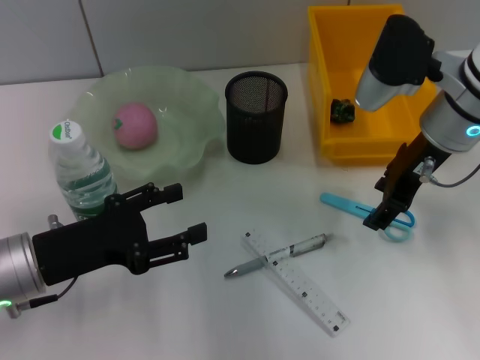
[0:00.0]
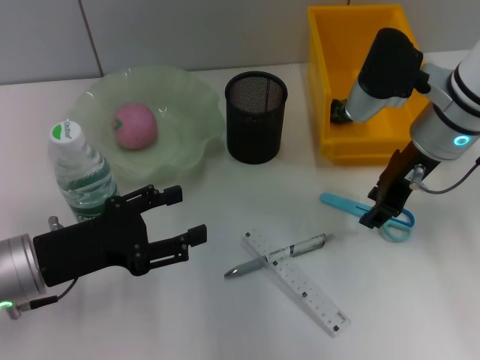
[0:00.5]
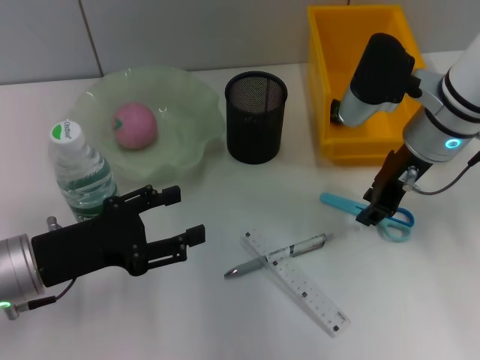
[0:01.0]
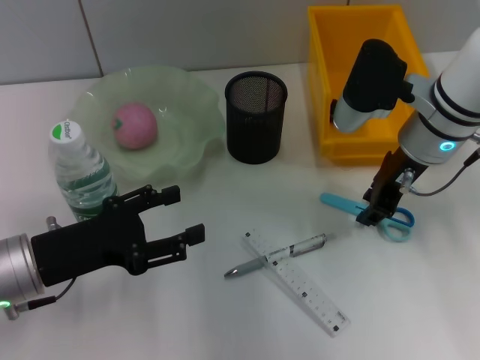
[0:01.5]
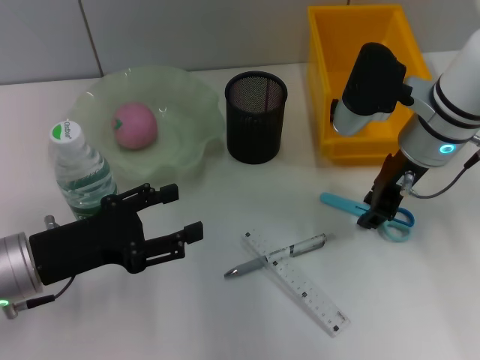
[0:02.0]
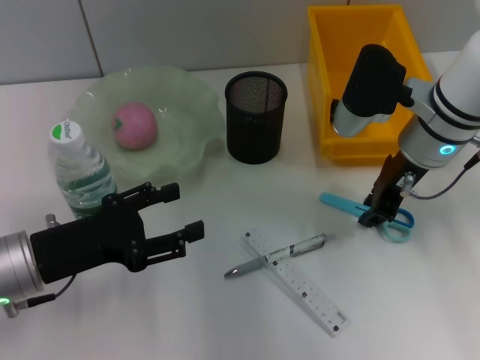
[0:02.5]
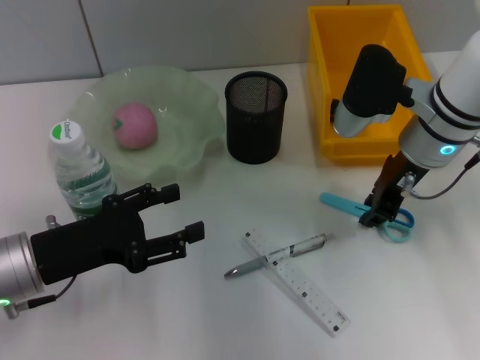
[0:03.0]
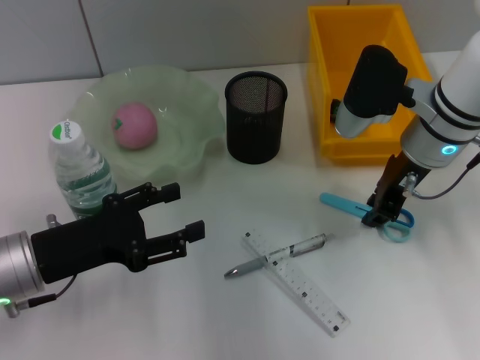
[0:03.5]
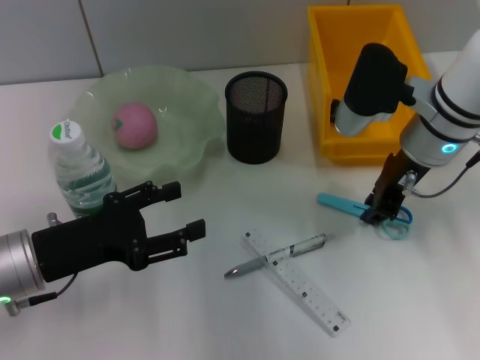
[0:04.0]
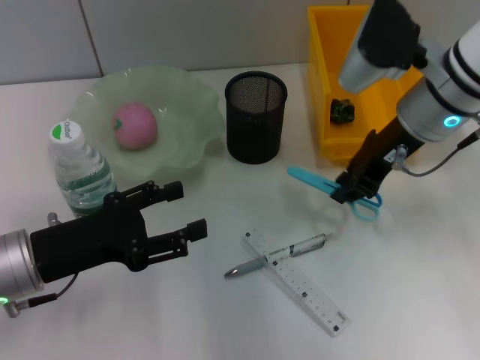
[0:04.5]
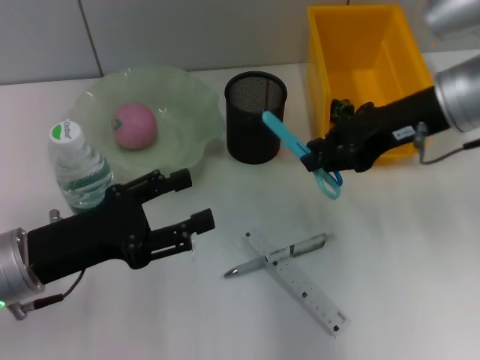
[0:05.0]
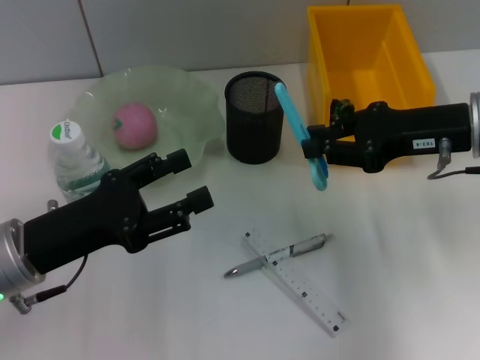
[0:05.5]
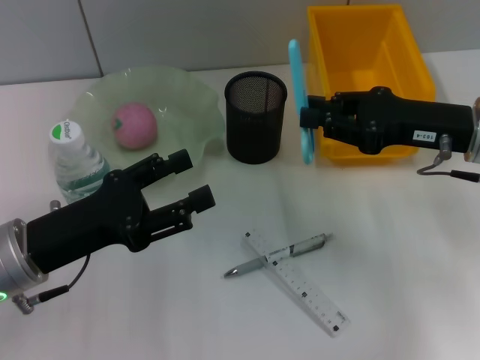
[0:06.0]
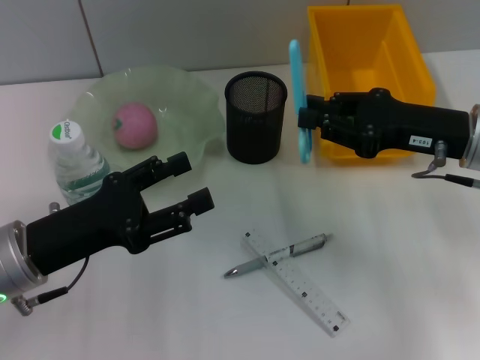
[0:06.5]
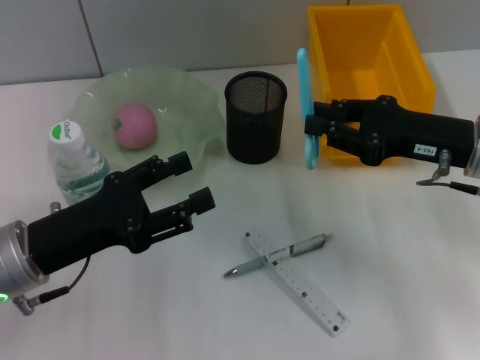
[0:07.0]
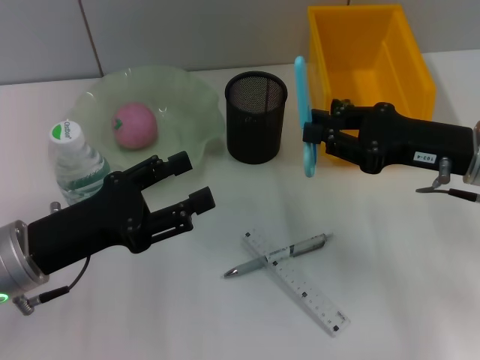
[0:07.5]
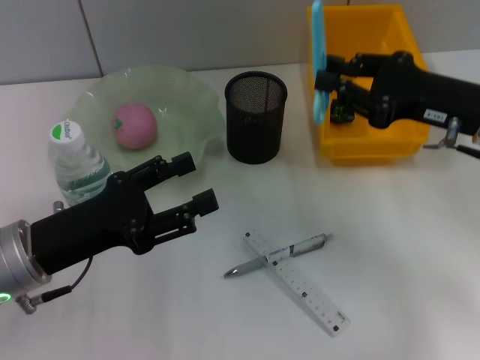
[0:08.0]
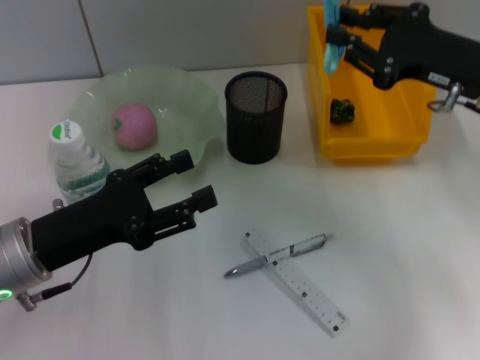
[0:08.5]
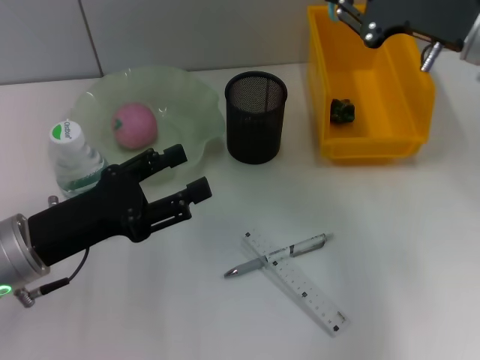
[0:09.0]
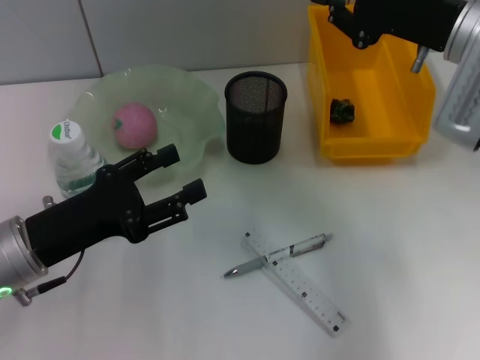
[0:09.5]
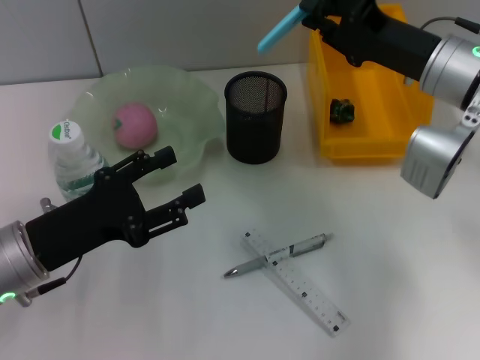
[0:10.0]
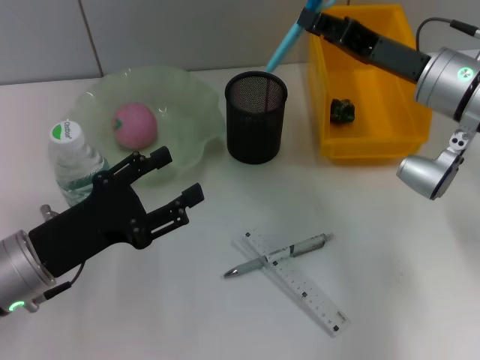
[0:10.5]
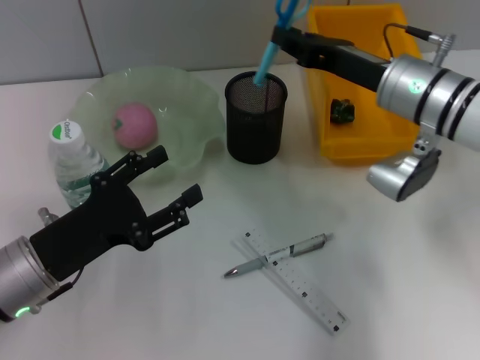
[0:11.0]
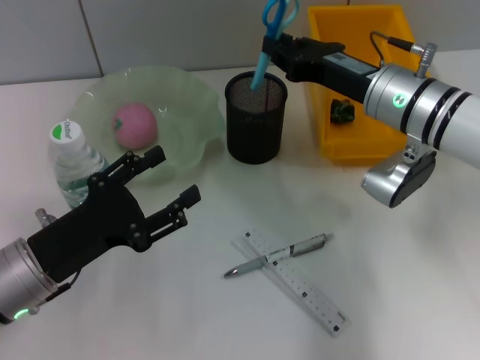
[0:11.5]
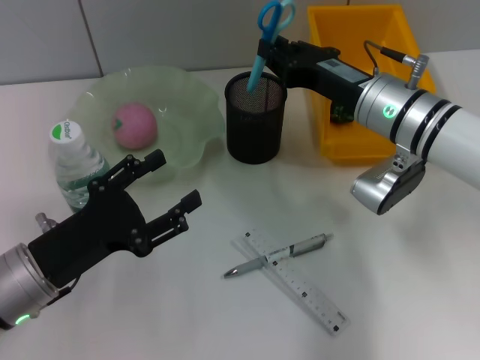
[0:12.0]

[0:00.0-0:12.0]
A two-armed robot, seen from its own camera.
Step, 0:00.0 to 0:03.5: Grab the blue scissors with the right hand.
0:00.0 to 0:02.0: The right gripper closes its fingers.
0:02.0 to 0:04.0: Neither gripper changes place.
0:04.0 to 0:06.0: The right gripper heads to the right and backward, covering some 10 cm.
0:06.0 to 0:08.0: There are only small adjustments of the grippers.
0:08.0 to 0:10.0: The right gripper ends up some 5 cm from where it was.
0:10.0 to 0:12.0: The right gripper heads to the left, covering about 5 cm.

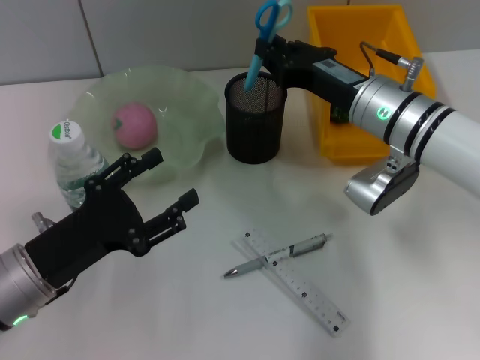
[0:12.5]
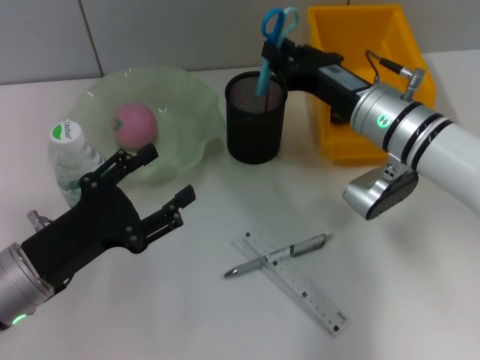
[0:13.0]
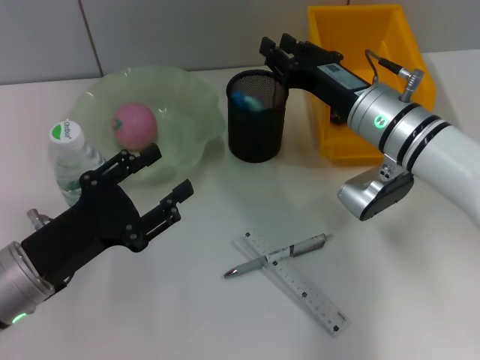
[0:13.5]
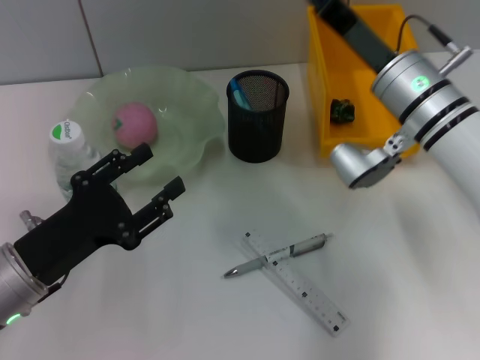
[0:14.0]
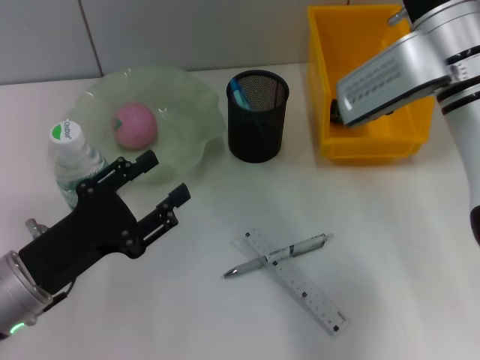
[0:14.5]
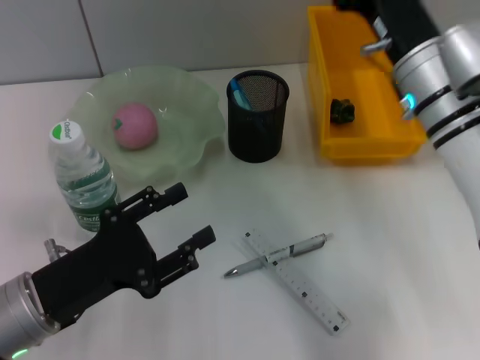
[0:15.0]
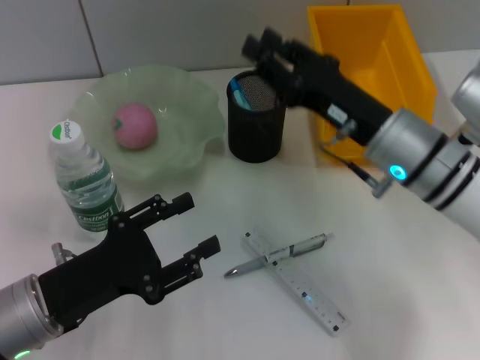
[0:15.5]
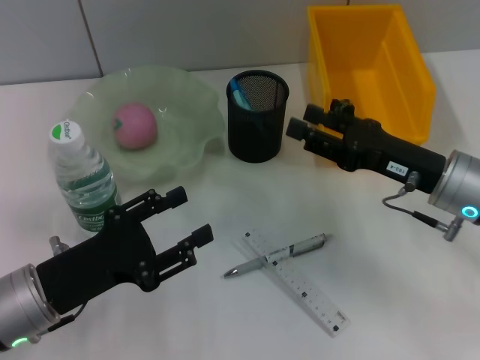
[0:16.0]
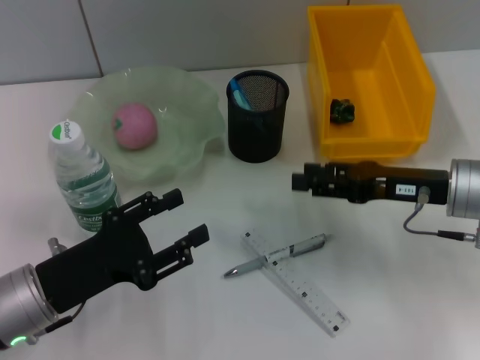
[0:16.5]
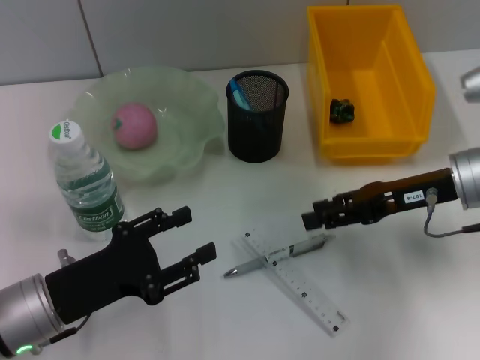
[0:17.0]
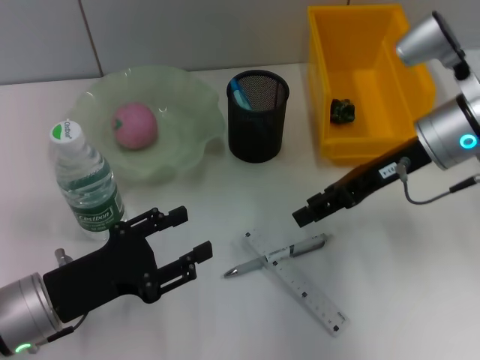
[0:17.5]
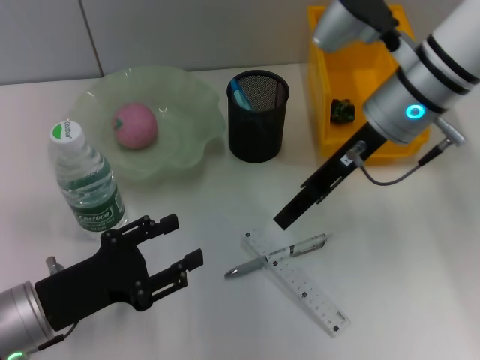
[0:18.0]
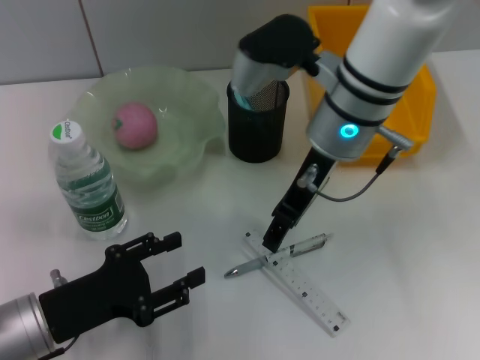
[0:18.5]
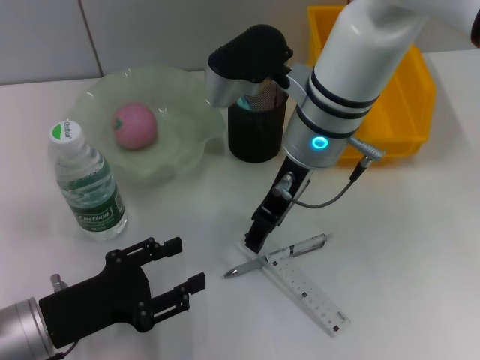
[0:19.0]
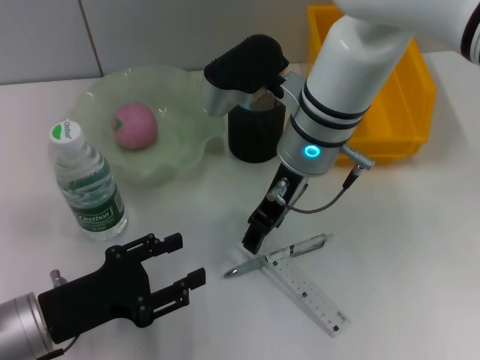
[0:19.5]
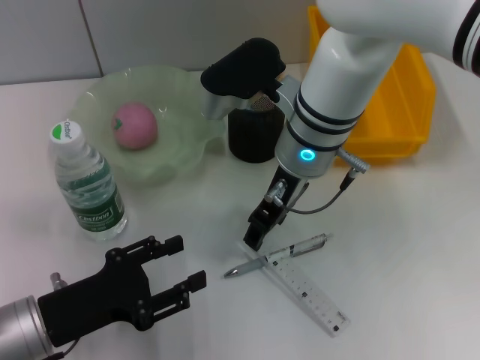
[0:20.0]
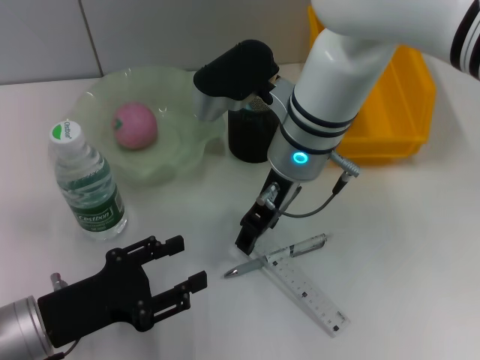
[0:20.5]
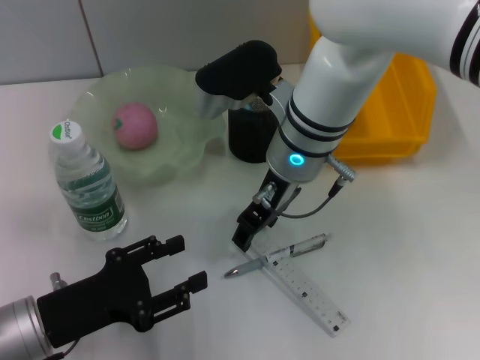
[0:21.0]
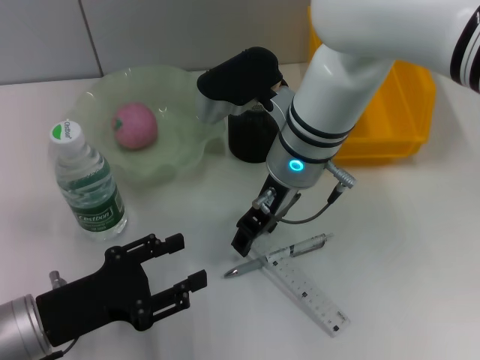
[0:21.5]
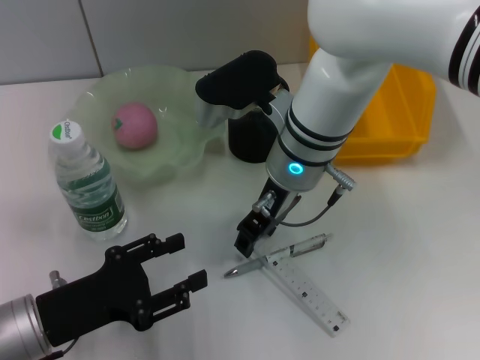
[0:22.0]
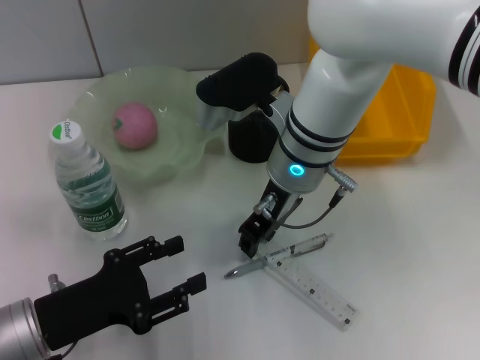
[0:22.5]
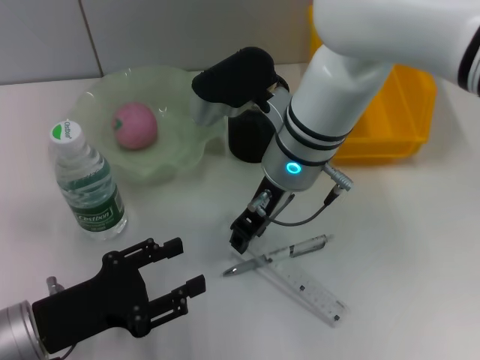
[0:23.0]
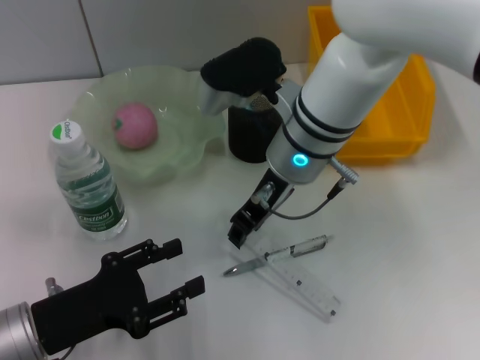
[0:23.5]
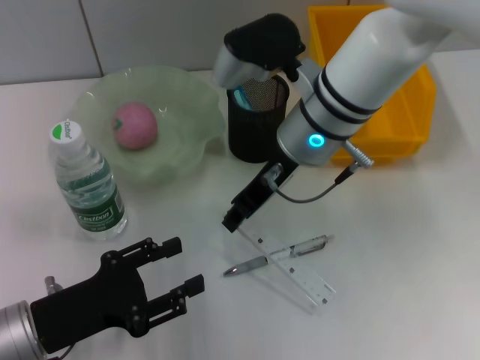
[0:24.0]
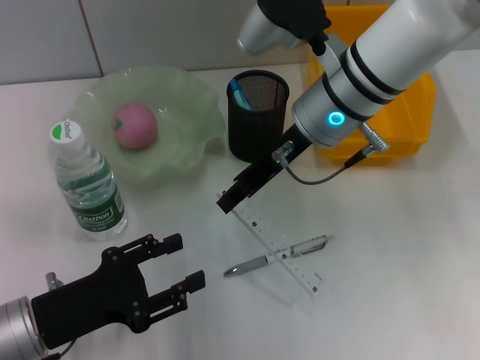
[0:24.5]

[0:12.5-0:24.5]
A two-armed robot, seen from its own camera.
Step, 0:14.0 to 0:22.5: Grab the ruler with the right hand.
0:12.5 to 0:14.5: The right gripper travels upward by roughly 5 cm.
0:14.5 to 0:16.5: The right gripper is displaced downward, to the right and backward by some 10 cm, and opens its fingers.
0:16.5 to 0:18.5: The right gripper moves to the left and upward, roughly 20 cm.
0:18.5 to 0:20.5: There are only small adjustments of the grippers.
0:20.5 to 0:22.5: The right gripper closes its fingers.
0:22.5 to 0:24.5: The right gripper ends up some 5 cm from where it was.

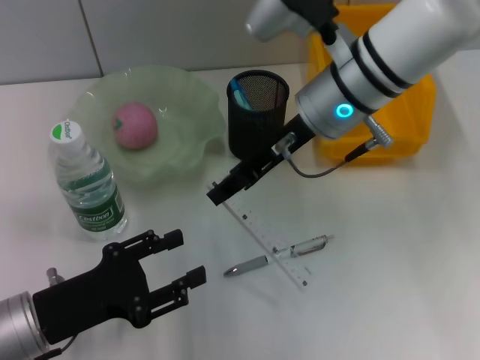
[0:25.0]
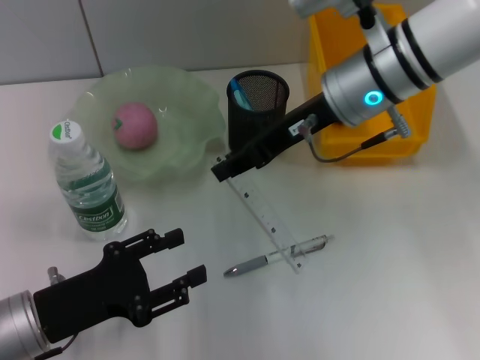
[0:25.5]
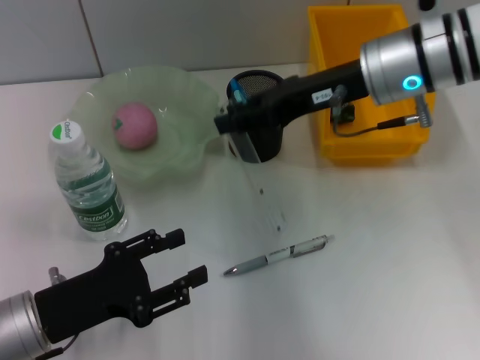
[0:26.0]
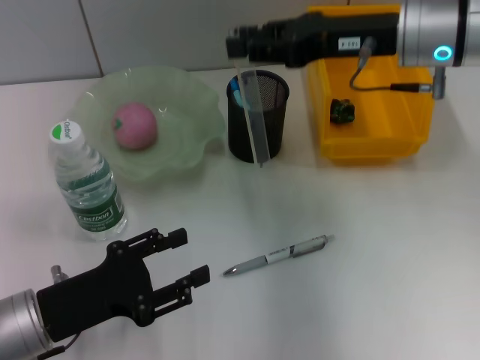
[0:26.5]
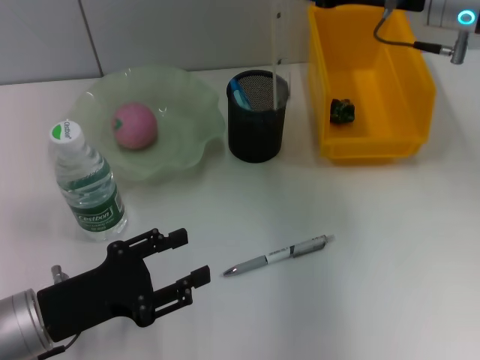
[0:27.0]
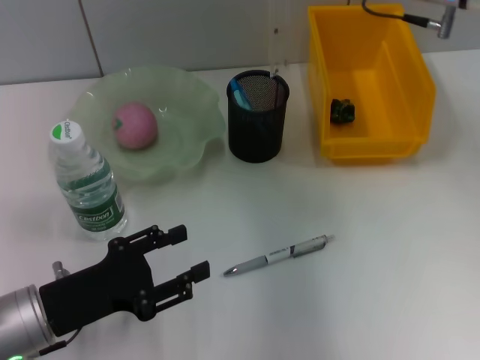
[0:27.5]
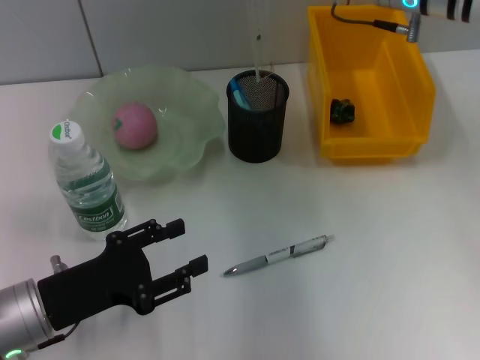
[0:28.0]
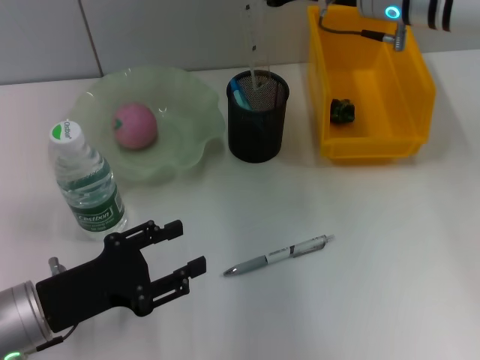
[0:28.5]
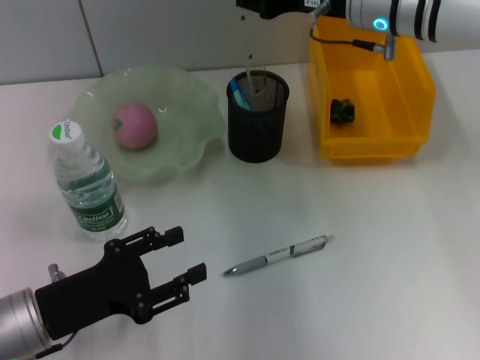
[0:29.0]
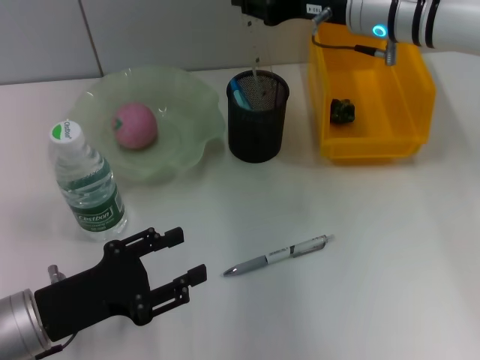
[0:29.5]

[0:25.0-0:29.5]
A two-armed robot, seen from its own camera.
0:25.0 to 0:27.0: The right gripper goes about 10 cm to the right.
0:27.0 to 0:29.5: The right gripper heads to the left, covering approximately 5 cm.
